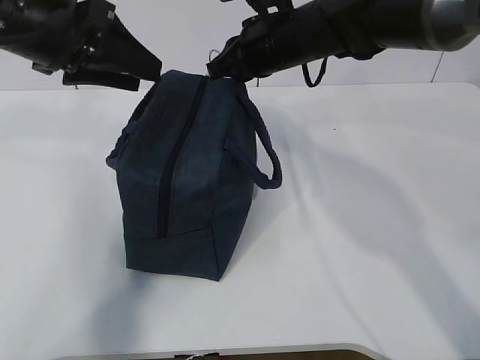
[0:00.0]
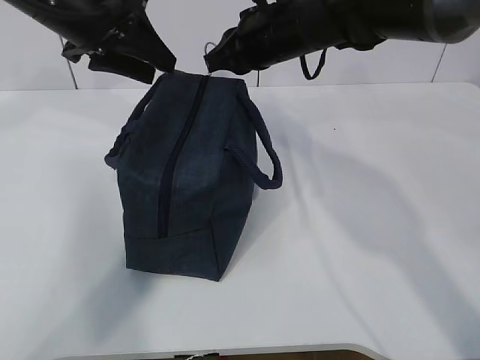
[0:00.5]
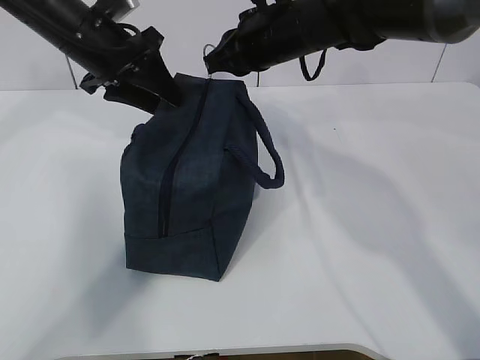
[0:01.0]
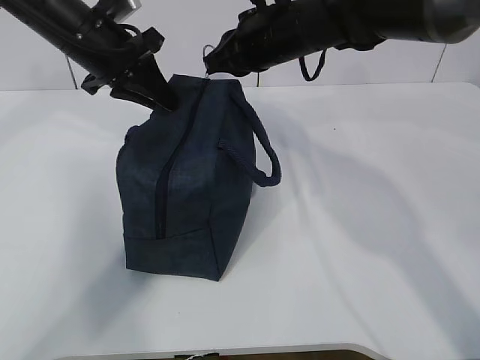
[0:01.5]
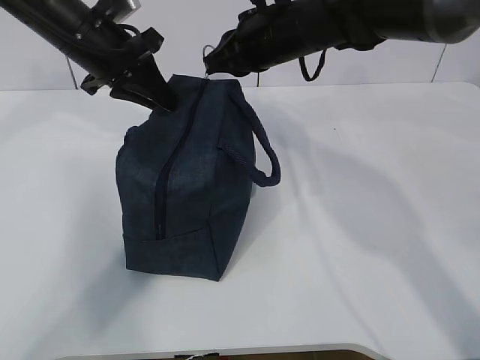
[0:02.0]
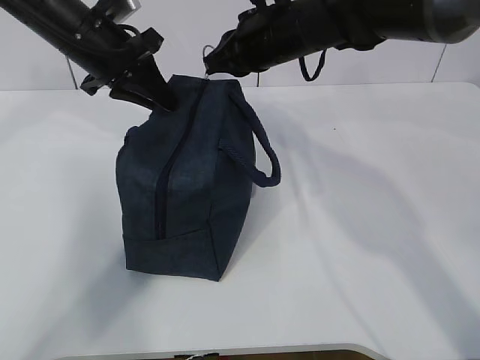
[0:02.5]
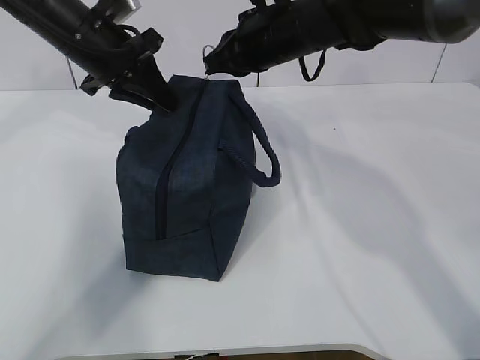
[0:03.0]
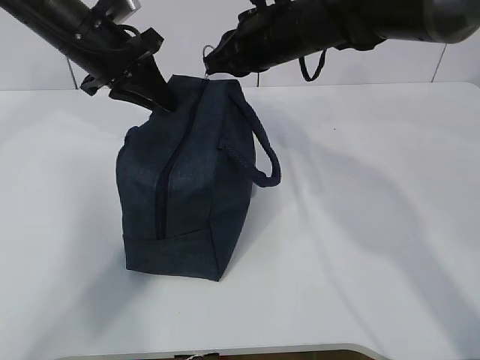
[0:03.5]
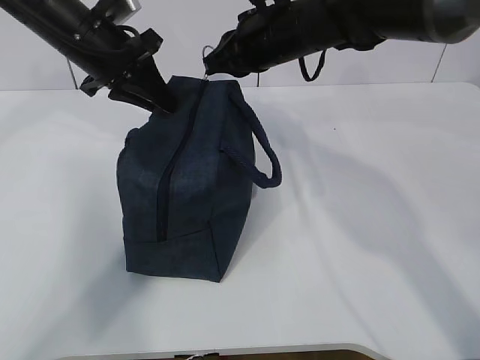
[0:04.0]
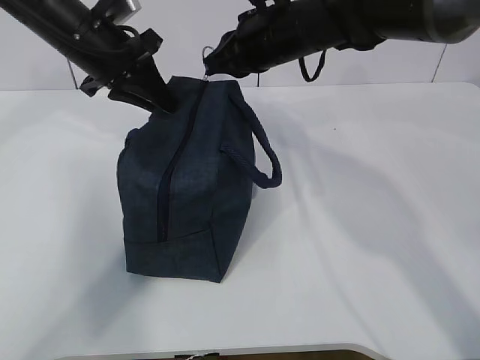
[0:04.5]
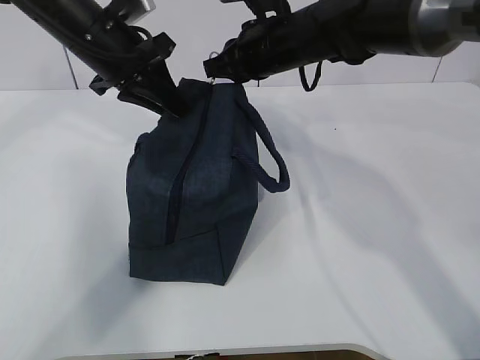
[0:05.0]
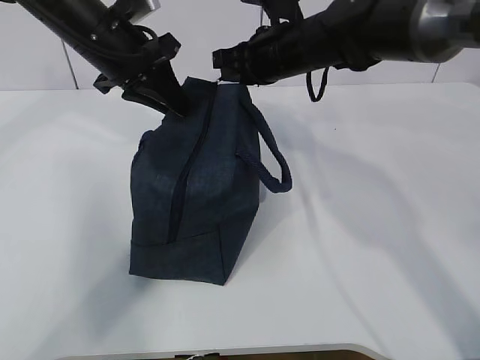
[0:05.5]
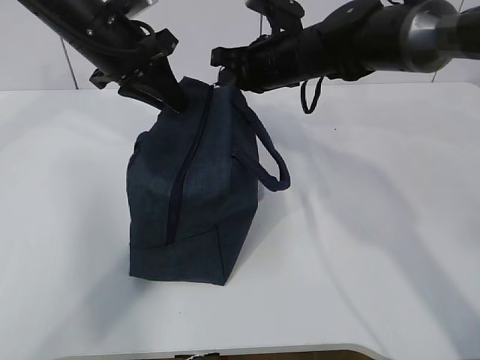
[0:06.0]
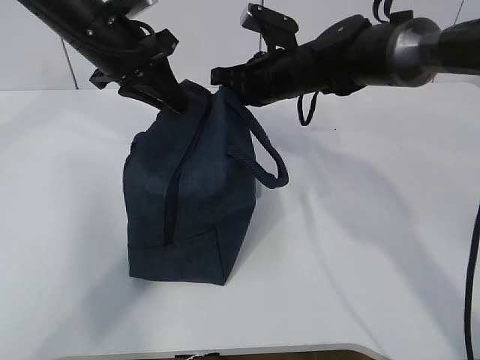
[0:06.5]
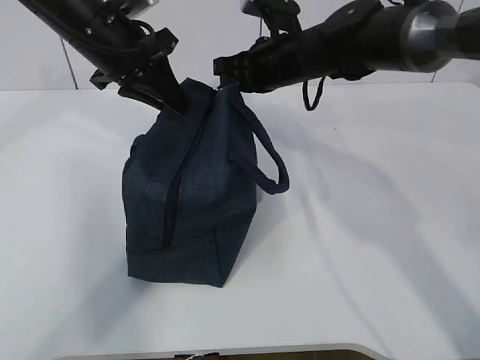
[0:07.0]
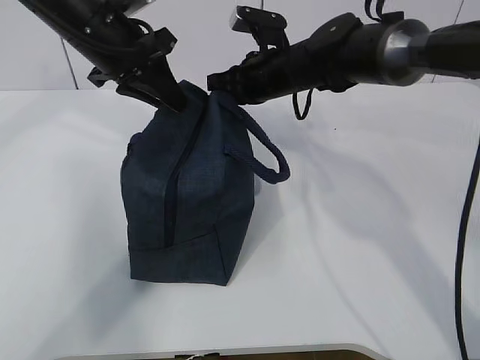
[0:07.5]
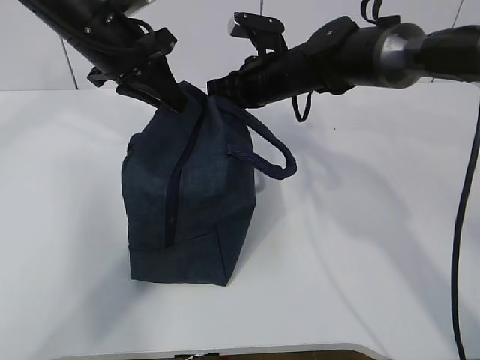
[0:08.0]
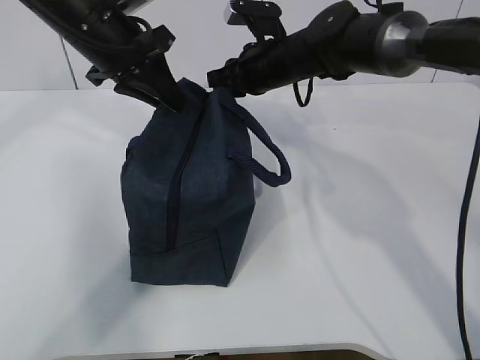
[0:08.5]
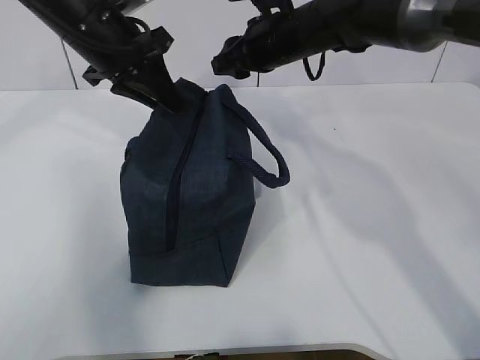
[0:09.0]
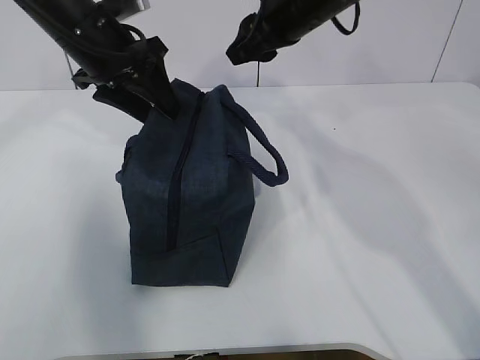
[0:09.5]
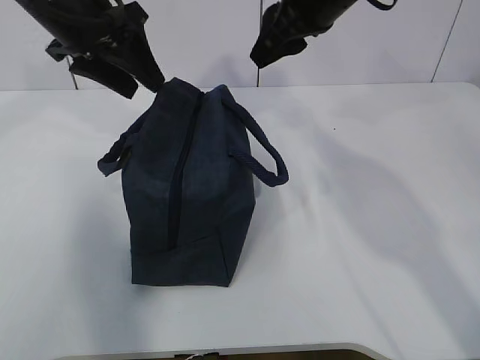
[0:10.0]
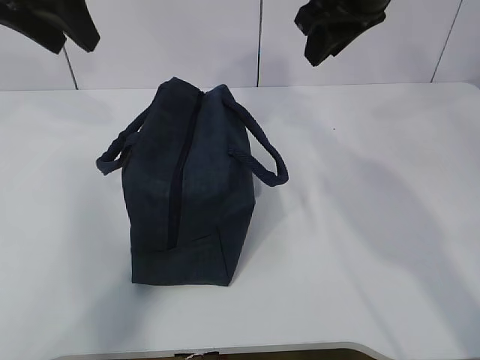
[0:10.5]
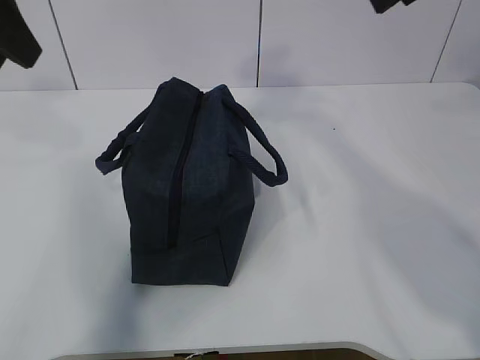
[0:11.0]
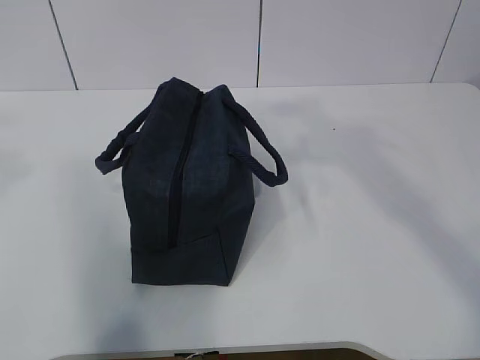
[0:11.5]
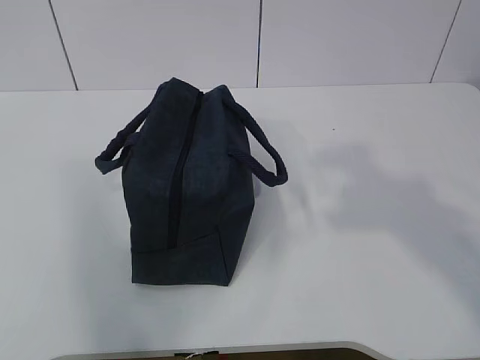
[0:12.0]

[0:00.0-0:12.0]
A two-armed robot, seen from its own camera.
0:00.0 to 0:02.0: The left gripper travels forward and downward by approximately 10 cm, and closes its fingers.
0:02.0 to 0:04.0: The two grippers keep their place.
0:04.0 to 0:06.0: The right gripper changes place by approximately 5 cm.
0:06.0 to 0:08.0: The grippers make only small movements.
0:08.0 to 0:10.0: The right gripper travels upward and backward by roughly 15 cm, and opens its fingers; the left gripper opens up.
0:10.0 to 0:12.0: The left gripper heads backward, covering approximately 30 cm, and closes up. Meanwhile the right gripper is displaced backward and to the right by approximately 35 cm.

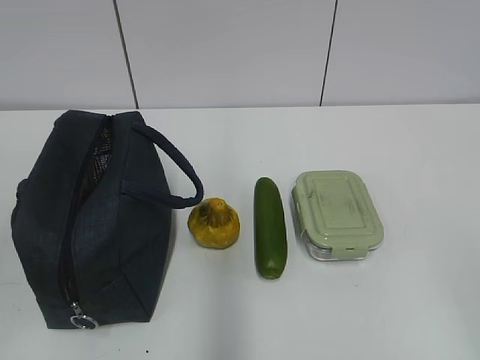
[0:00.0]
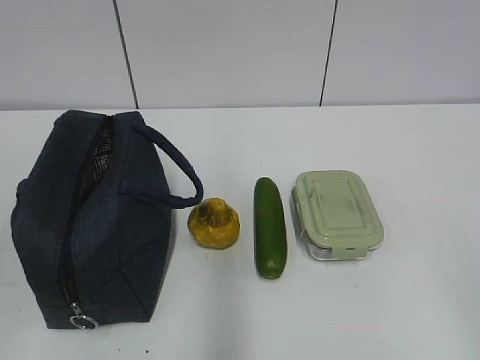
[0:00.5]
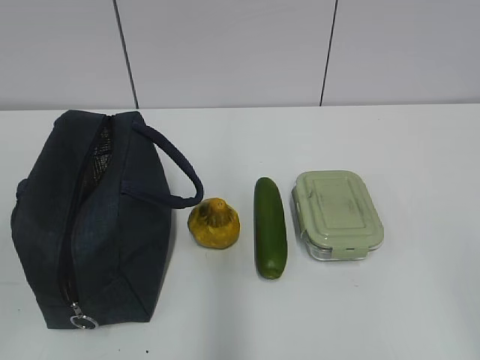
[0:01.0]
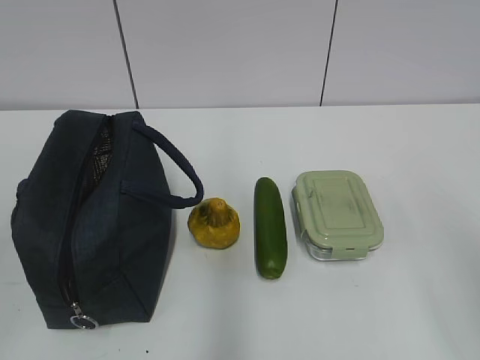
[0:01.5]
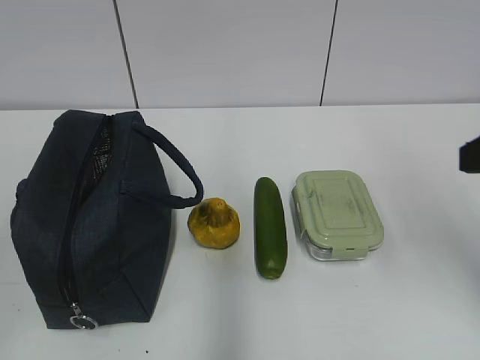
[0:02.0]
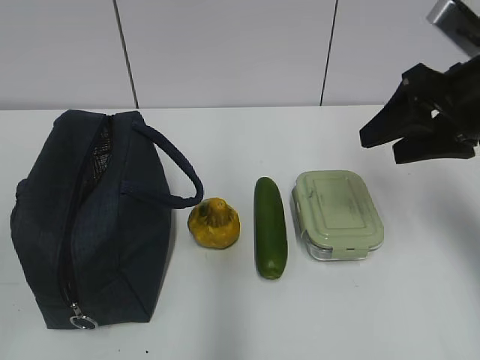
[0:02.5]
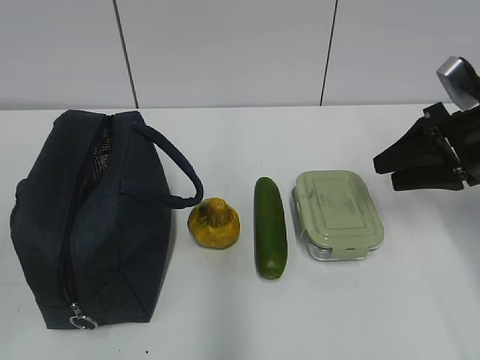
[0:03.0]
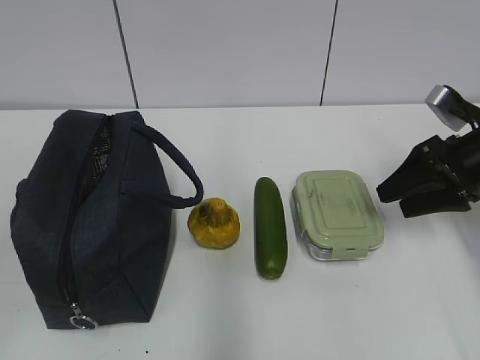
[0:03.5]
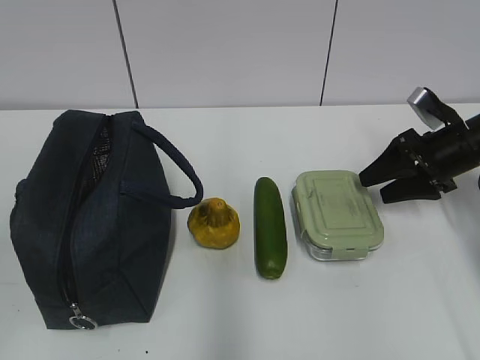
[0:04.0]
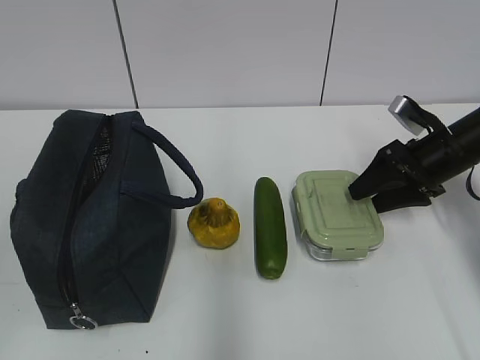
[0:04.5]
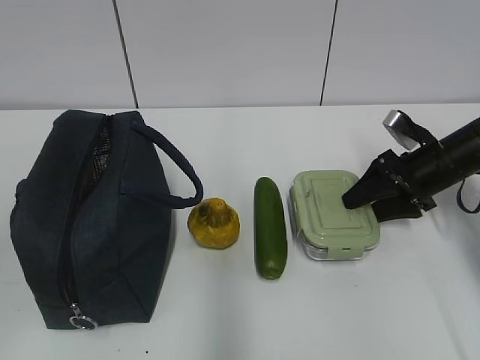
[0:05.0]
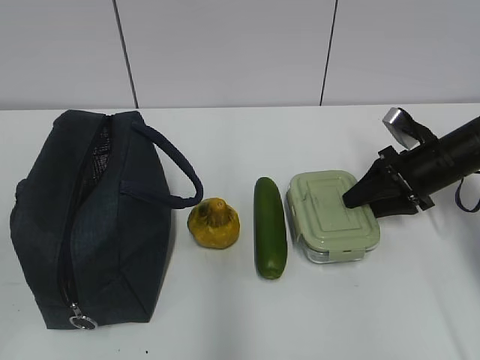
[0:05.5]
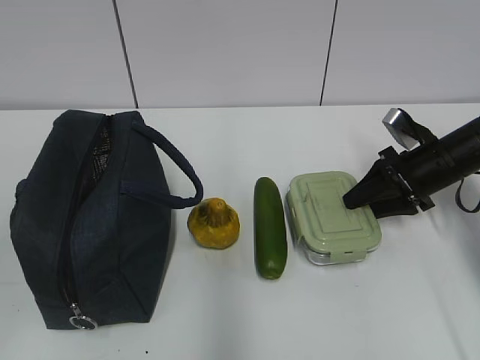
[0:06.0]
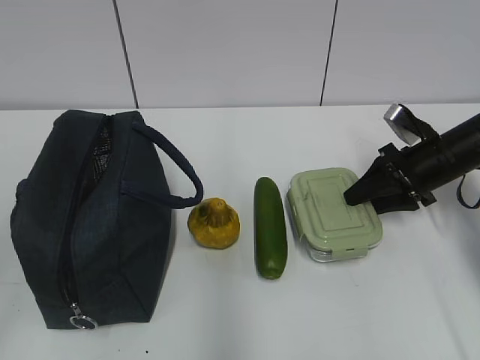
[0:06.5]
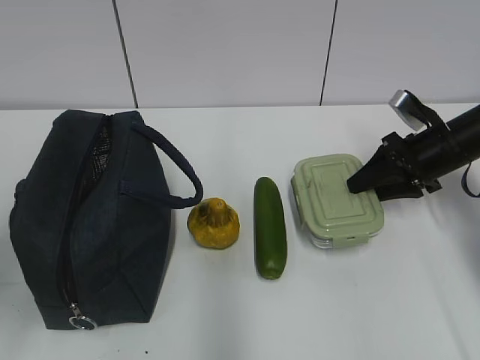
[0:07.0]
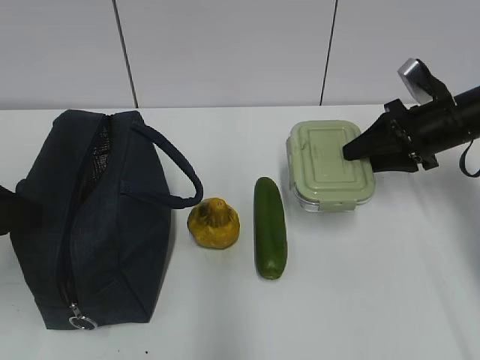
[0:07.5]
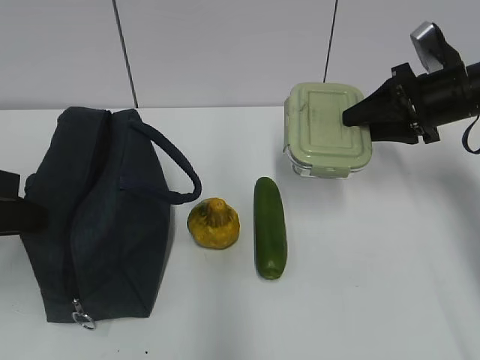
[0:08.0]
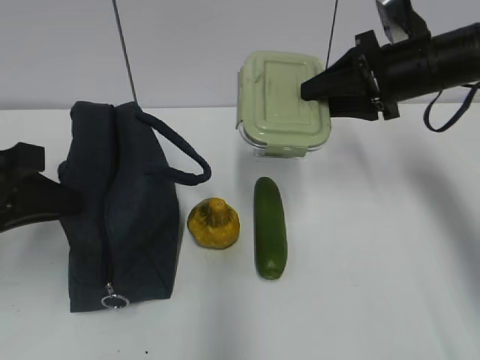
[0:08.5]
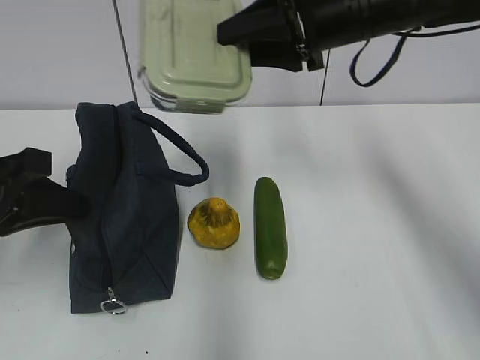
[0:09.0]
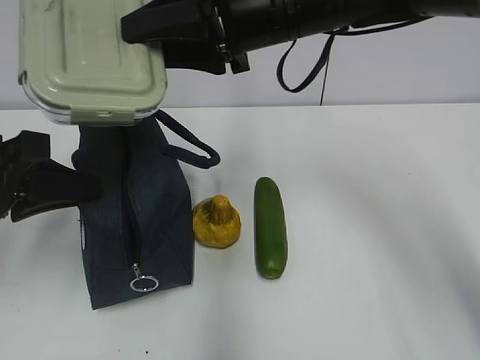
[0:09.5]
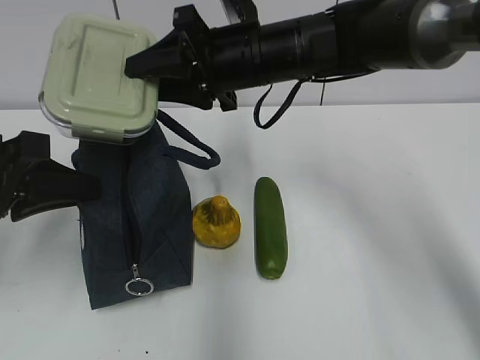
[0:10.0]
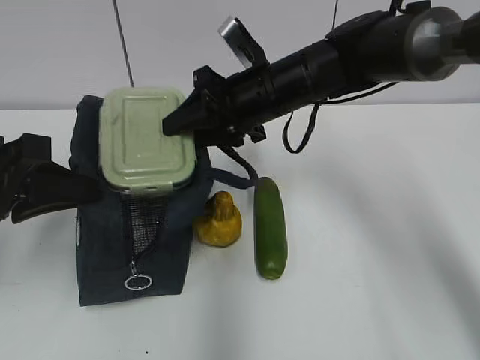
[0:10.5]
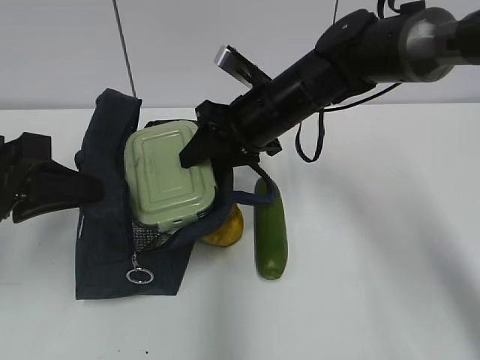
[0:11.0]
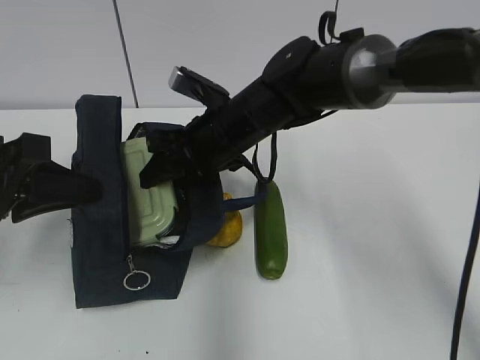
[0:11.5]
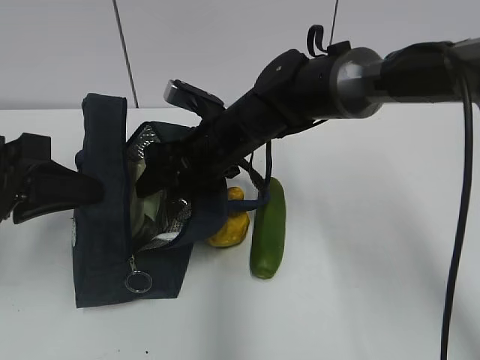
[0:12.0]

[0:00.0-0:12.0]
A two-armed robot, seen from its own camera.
Step, 0:00.0 to 0:06.0: Grab the lunch box with your right hand.
Step, 0:06.5 to 0:07.5: Grab the lunch bag with your left hand.
Step, 0:08.0 to 0:11.5: Place it into the bag with your right hand.
0:02.0 to 0:04.0: The right gripper is displaced forward and downward by roughly 30 cm.
0:04.0 to 0:06.0: There are only small adjustments of the grippers.
0:06.0 to 0:08.0: The right gripper goes about 10 cm upward, while the left gripper shifts roughly 20 cm forward, and closes its fingers.
0:08.0 to 0:10.0: The right gripper moves to the left, roughly 25 cm.
0:10.0 to 0:12.0: The right gripper shifts some 10 cm downward.

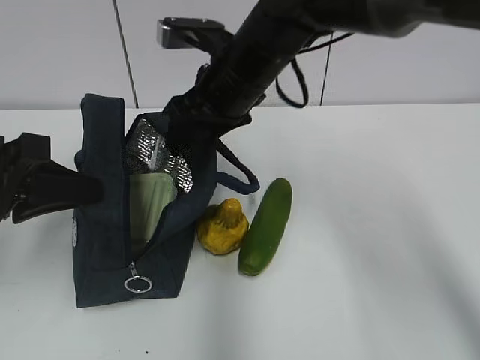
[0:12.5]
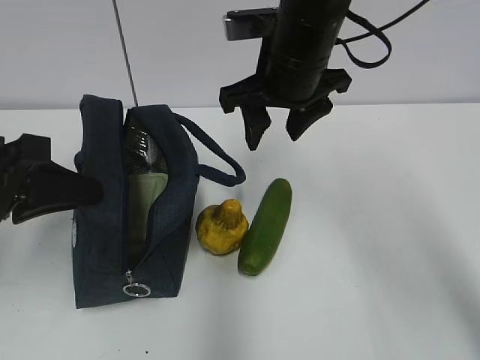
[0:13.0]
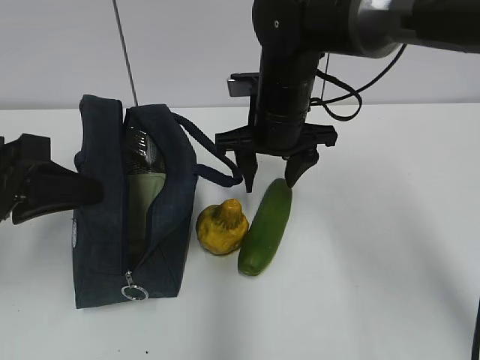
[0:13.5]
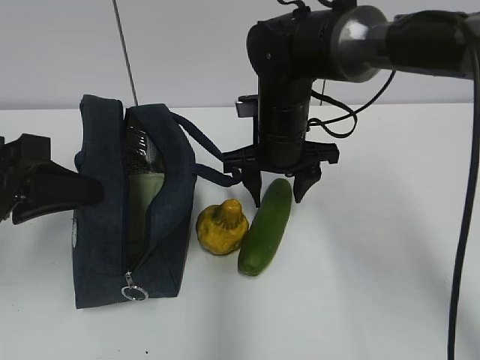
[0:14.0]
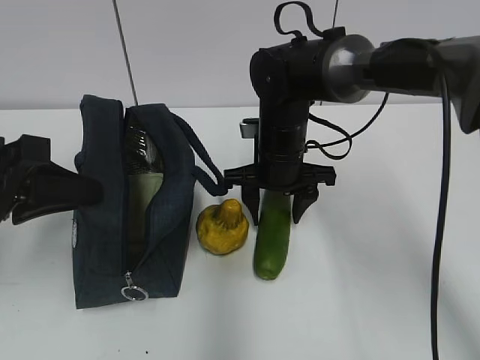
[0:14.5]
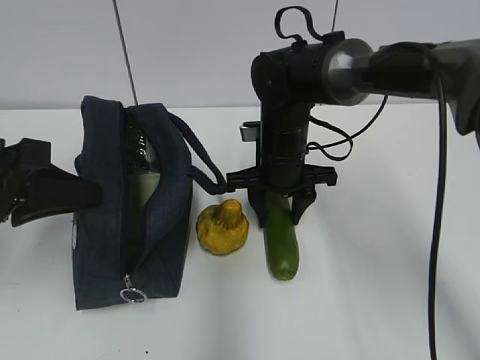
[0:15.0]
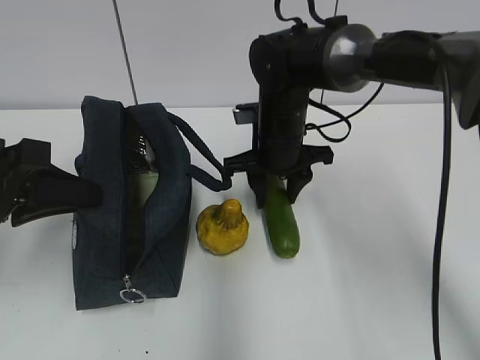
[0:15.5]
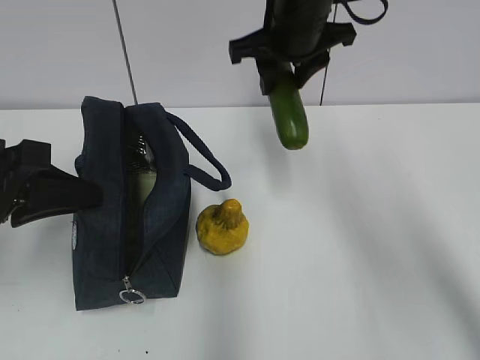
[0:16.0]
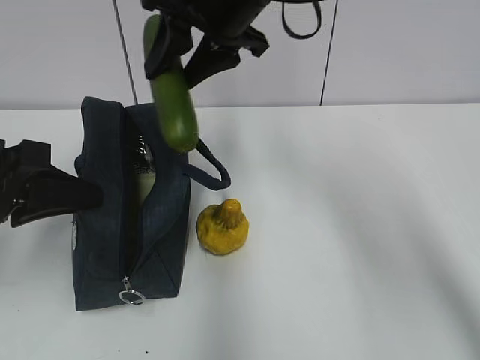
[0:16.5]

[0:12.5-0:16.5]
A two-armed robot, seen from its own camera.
Step, 0:12.5 to 0:15.0: Grab the cucumber with your right hand.
0:12.5 to 0:14.5: The right gripper heads downward, covering approximately 10 cm.
0:14.5 to 0:16.5: The right gripper shifts some 20 cm upward.
